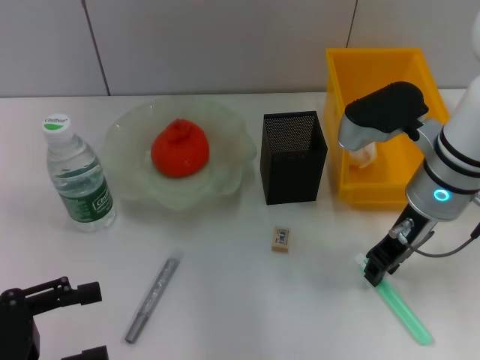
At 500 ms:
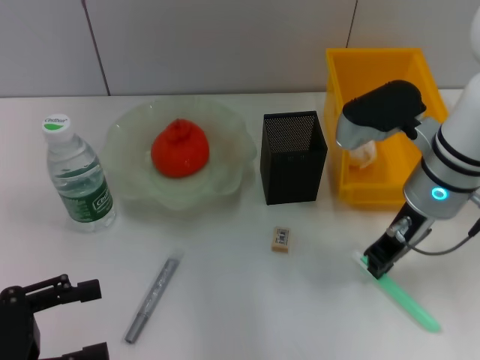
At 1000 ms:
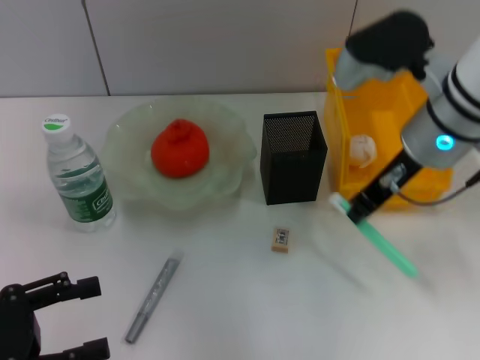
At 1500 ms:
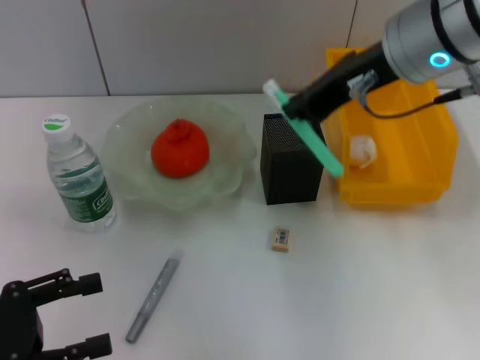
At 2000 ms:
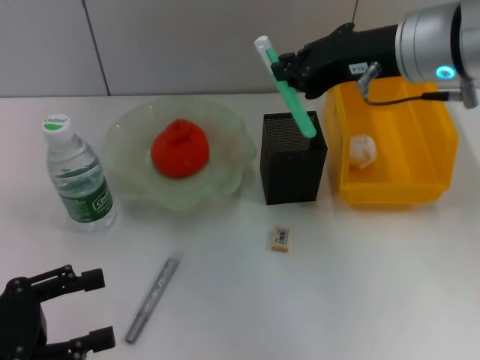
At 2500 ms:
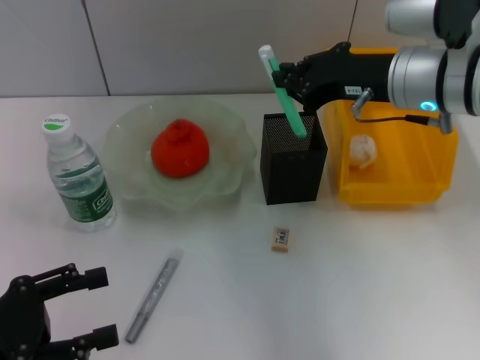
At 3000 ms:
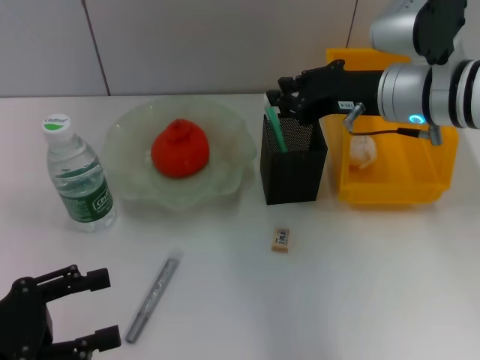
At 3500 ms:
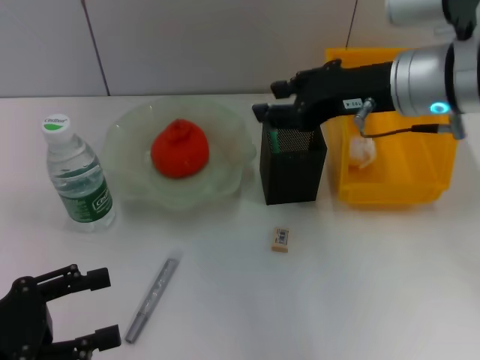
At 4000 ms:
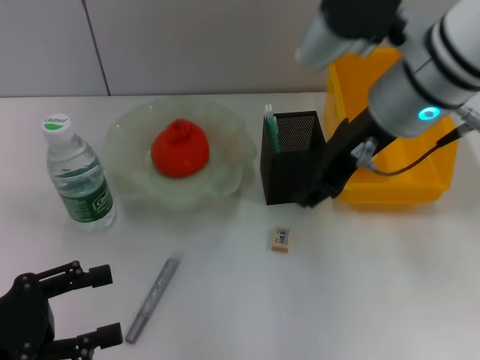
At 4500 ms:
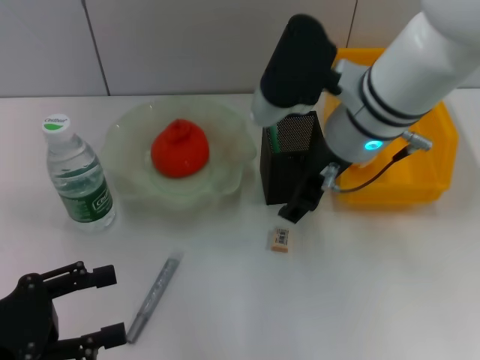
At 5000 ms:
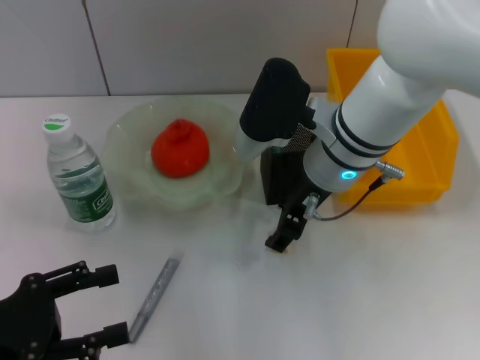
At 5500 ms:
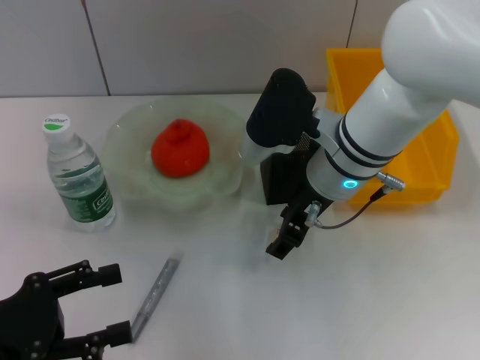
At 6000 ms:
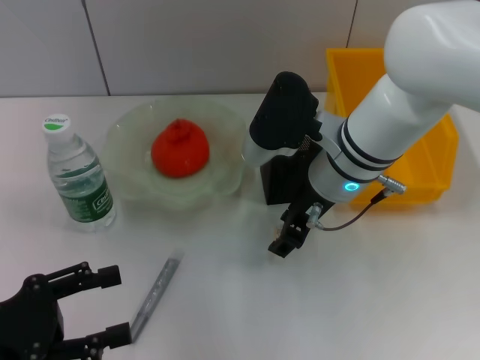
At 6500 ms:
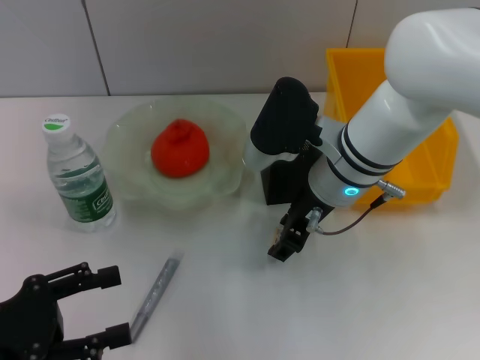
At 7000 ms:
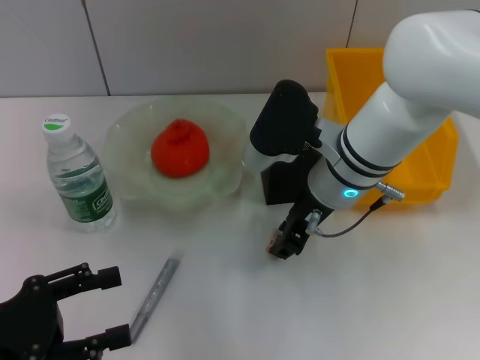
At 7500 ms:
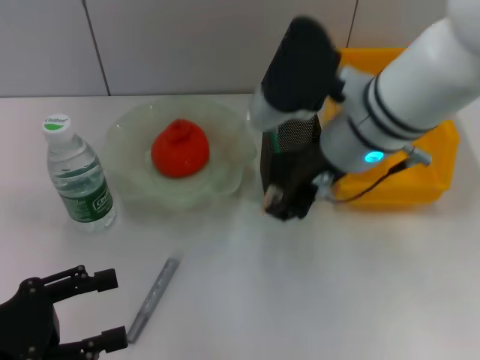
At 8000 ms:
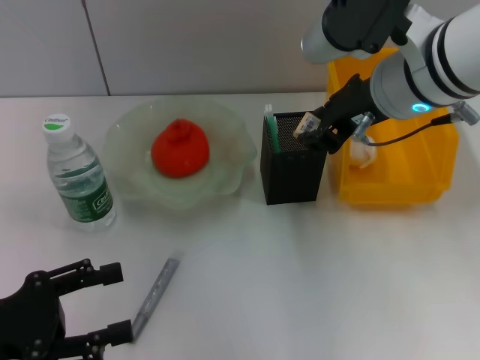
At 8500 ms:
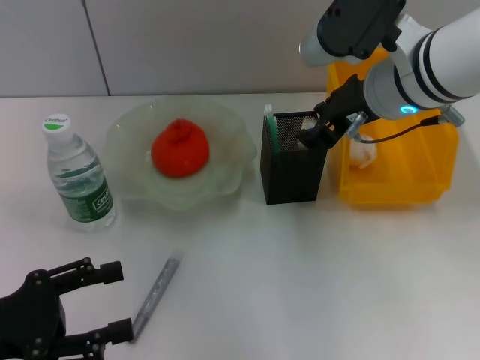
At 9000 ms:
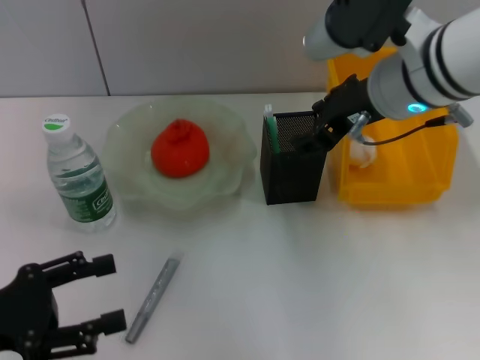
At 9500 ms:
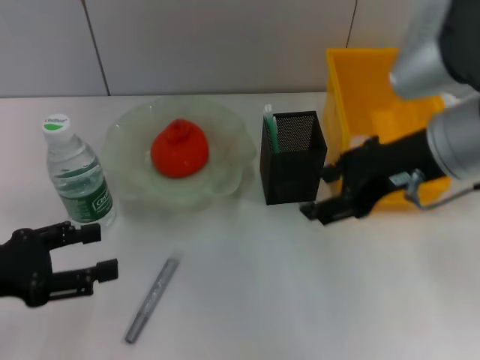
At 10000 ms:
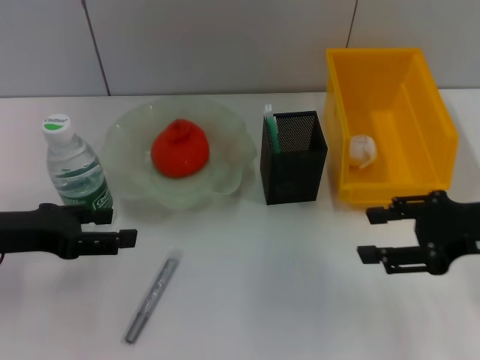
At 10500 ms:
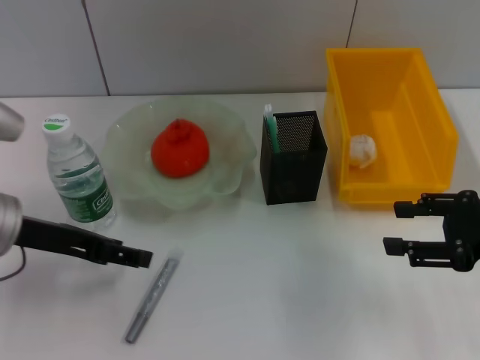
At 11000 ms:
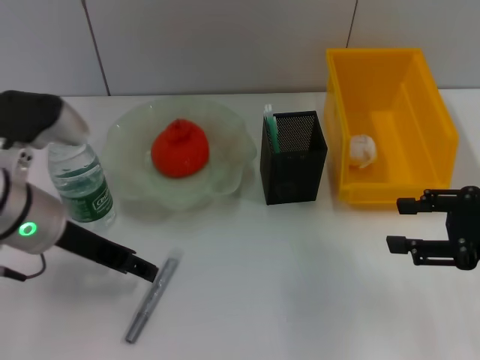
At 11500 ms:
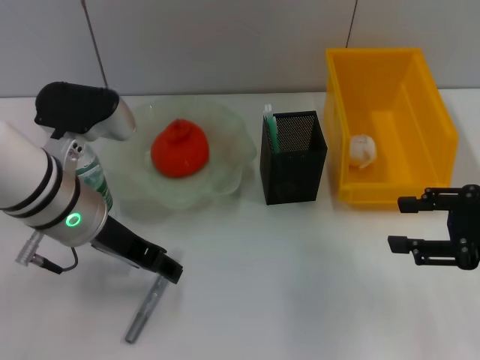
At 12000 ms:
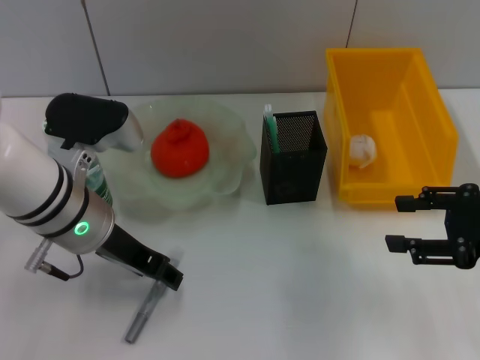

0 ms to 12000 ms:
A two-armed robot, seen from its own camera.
Step, 500 ms to 3000 ms: Place the blue utility knife into the pen holder with the right hand.
Step, 3500 ms to 6500 ms: Grab the eraser with the right hand.
Step, 7000 ms to 8500 ms: Put the eraser into the pen holder with the right hand.
0 ms to 2000 ms: The right gripper moves upward, roughly 10 cm.
2000 ms to 4000 ms: The right gripper opens.
4000 ms to 6000 ms: The right gripper travels downward by some 10 cm.
6000 ms to 8000 ms: The right gripper shifts some 10 cm upward.
8000 ms to 10000 ms: The right gripper moves to the right, downward and backward, some 20 cm, and opens up. Meanwhile the left gripper moves forward, some 10 cm.
10000 ms to 12000 ms: The left gripper goes some 15 cm to the right.

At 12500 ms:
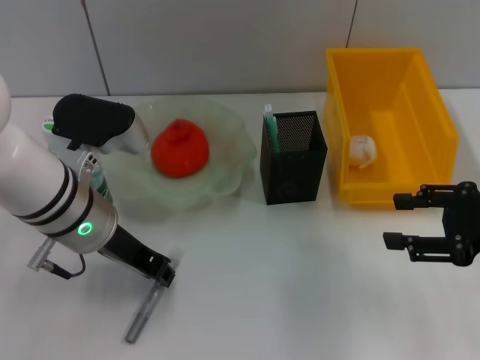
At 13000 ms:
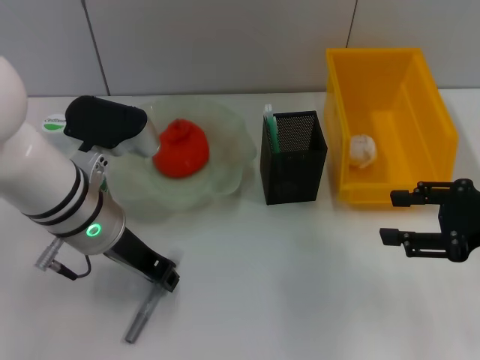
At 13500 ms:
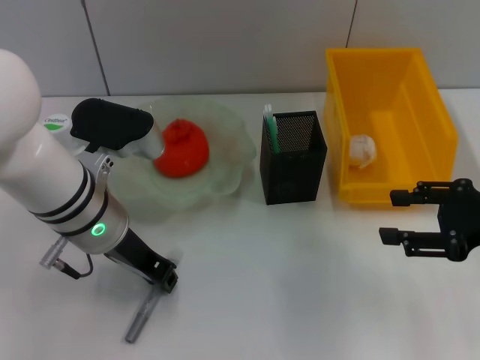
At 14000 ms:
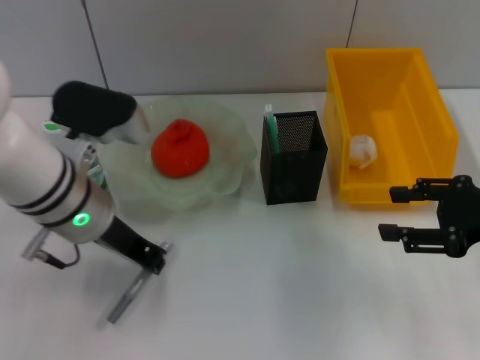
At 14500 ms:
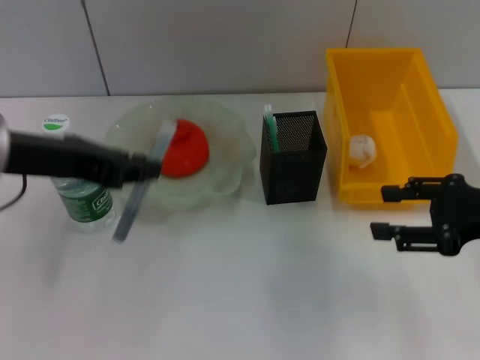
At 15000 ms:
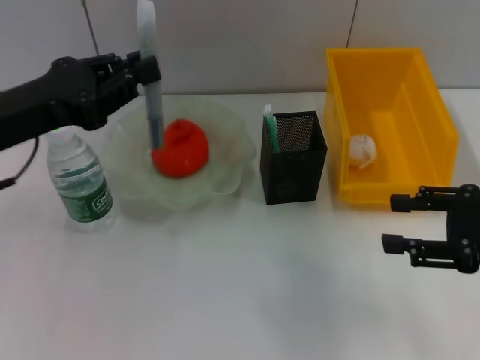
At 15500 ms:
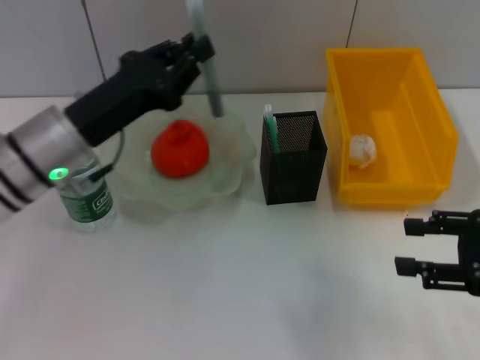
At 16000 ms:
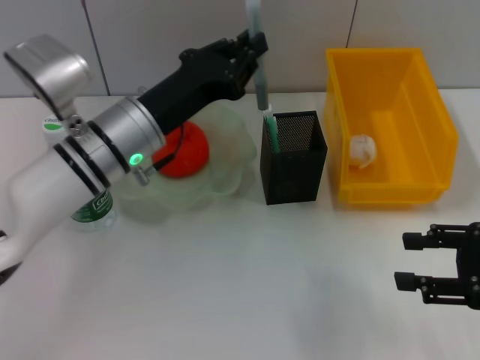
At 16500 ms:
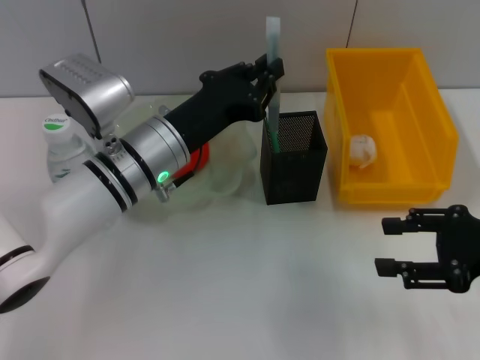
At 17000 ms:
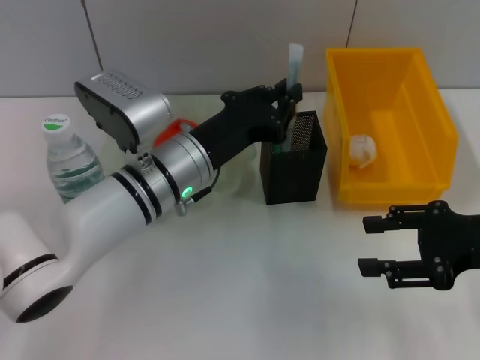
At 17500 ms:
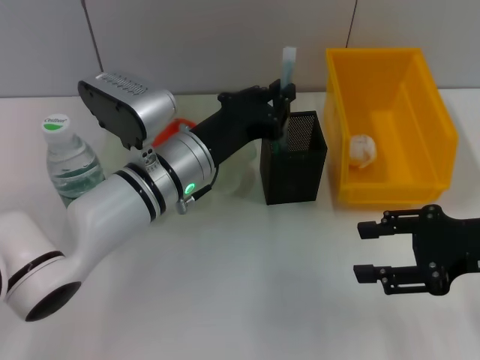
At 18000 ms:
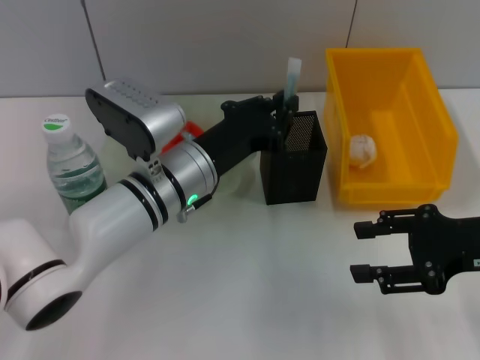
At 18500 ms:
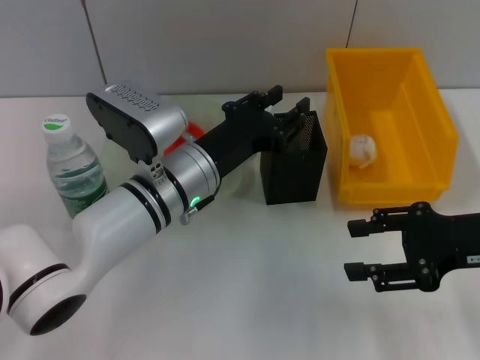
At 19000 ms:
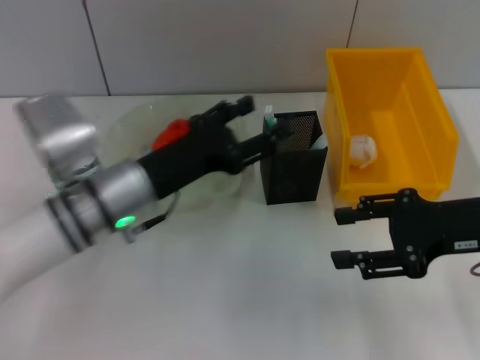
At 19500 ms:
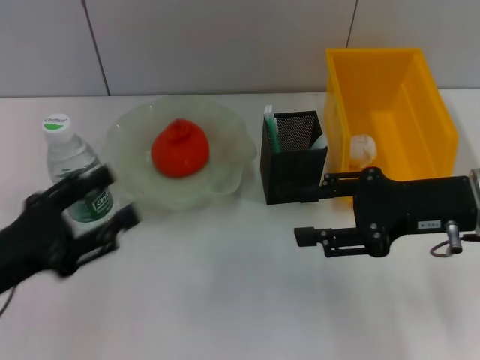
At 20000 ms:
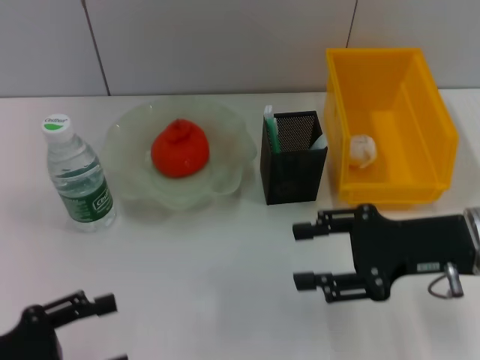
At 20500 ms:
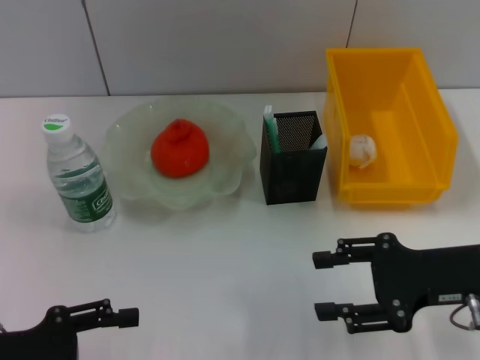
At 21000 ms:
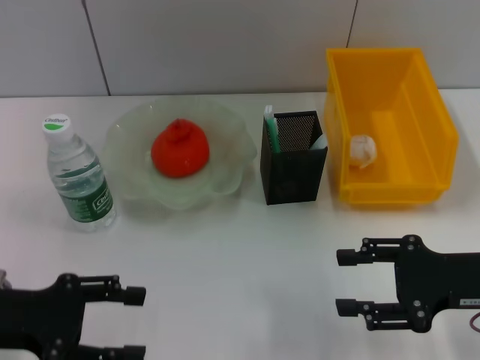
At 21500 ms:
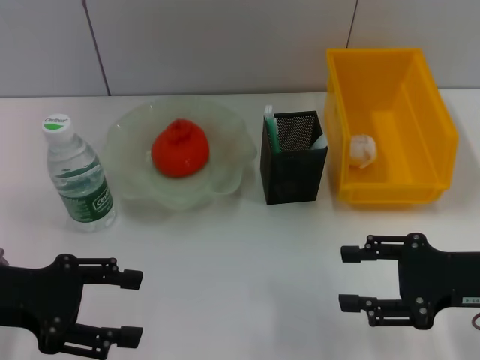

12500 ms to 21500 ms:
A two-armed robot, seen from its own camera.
Step, 14000 ms to 18500 ms: Place the gray glue into the pen holder with the left hand.
12500 ms to 14500 ms: The left gripper goes about 10 cm upward and to the left, and closes up.
14500 ms to 17000 ms: The left gripper is displaced downward, to the right and forward by about 20 cm.
17000 ms to 19500 ms: The left gripper travels to the left and backward by some 25 cm, and opens up; the right gripper is displaced to the left by roughly 5 cm.
19500 ms to 21500 ms: The left gripper moves about 5 cm backward and comes back, while the right gripper shifts about 5 cm backward.
